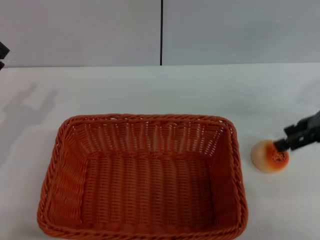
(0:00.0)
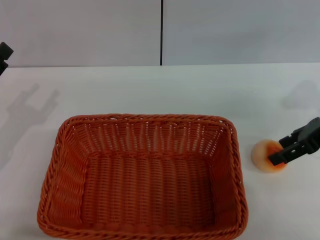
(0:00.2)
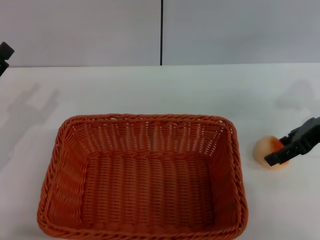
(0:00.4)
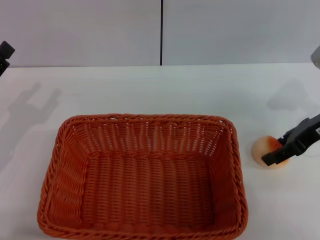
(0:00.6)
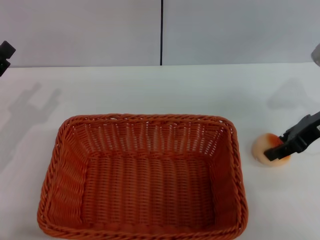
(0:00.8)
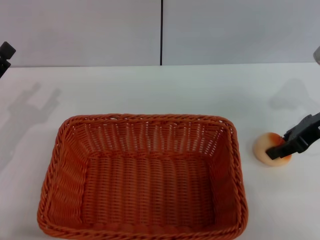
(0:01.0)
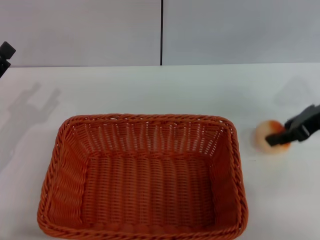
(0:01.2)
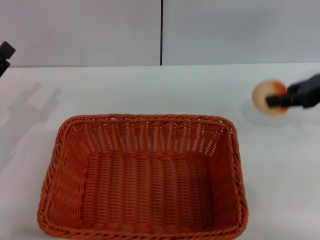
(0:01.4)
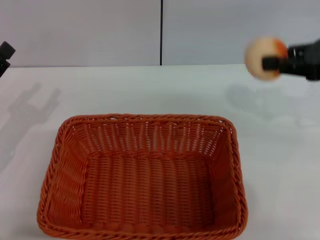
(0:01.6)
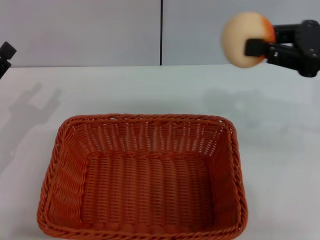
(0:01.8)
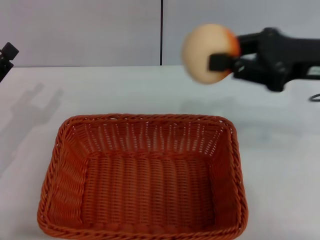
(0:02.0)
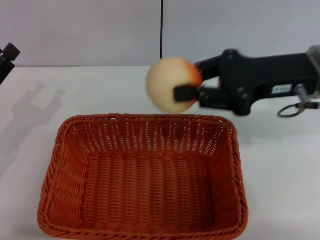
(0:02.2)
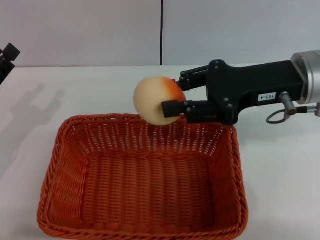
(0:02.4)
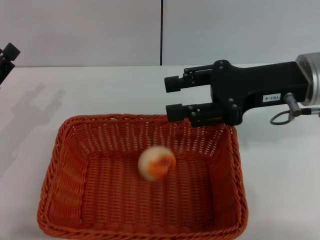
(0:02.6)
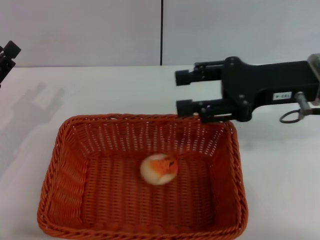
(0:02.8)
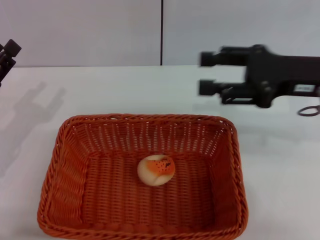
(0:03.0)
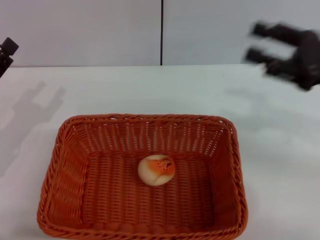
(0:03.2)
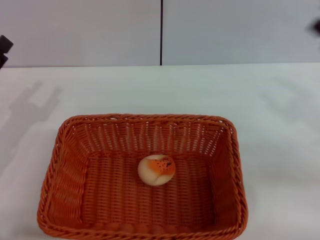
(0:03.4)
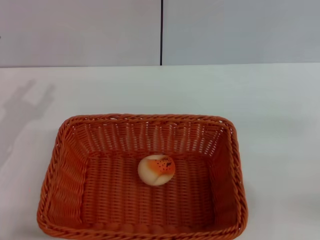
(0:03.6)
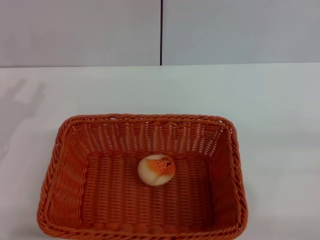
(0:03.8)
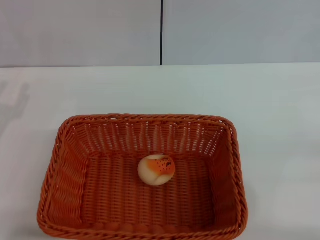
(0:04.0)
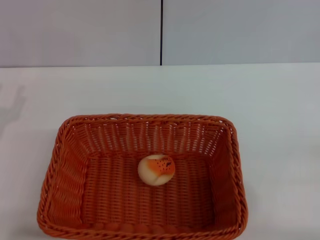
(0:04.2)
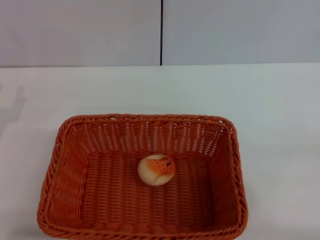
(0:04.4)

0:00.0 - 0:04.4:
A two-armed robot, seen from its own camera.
Step, 0:00.0 - 0:01.2: Pick up the egg yolk pastry with the right gripper.
Step, 0:01.4 - 0:02.6: Place the egg yolk pastry into the basket with the right gripper.
0:00.0 - 0:01.4: The right gripper closes up.
0:01.4 - 0:03.0: The right gripper goes about 5 cm to the left, and opens its fingers.
0:03.0 - 0:04.4: The right gripper is displaced to the right, backward and downward by approximately 25 cm.
